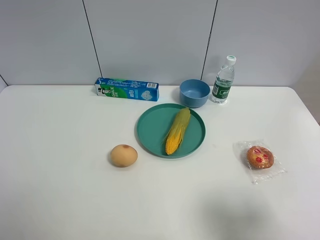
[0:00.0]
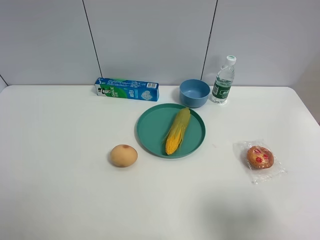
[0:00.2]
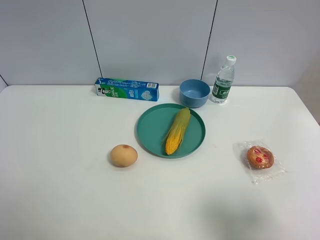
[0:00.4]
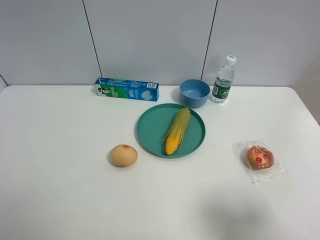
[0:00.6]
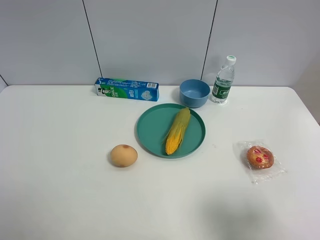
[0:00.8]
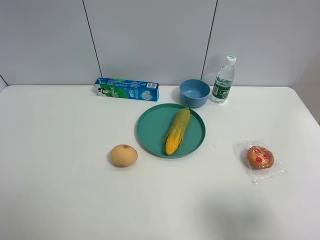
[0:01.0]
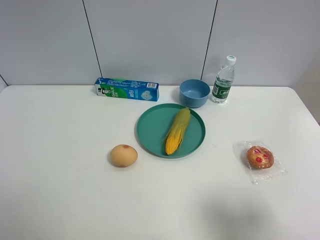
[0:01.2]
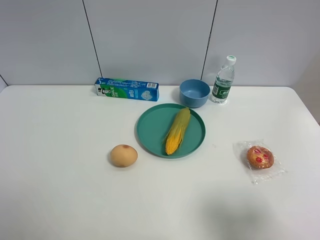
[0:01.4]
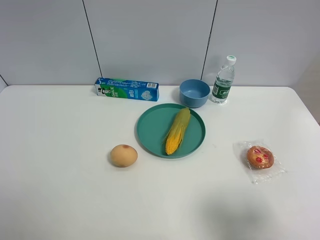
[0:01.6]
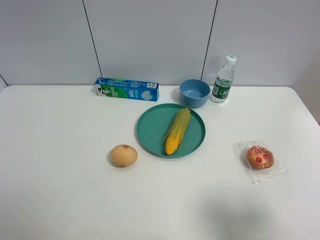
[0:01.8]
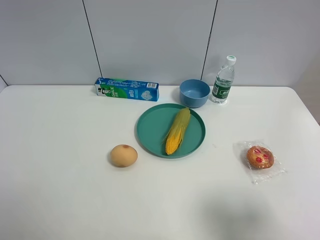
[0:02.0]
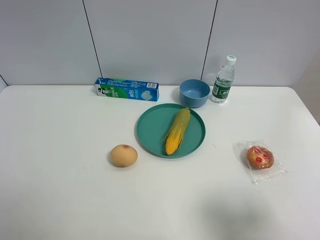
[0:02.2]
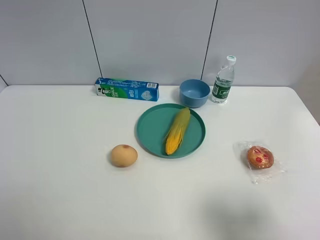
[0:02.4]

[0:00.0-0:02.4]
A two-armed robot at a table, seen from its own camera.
Task of the whole recording: the gripper move the object.
1.2 to 2.4 s: The two grippers keep their place.

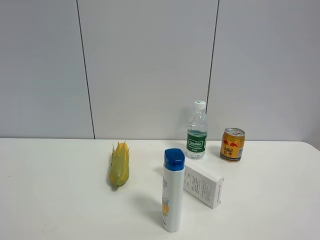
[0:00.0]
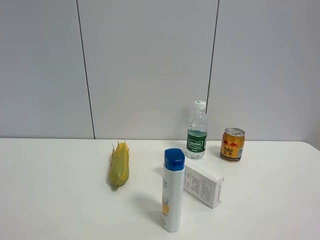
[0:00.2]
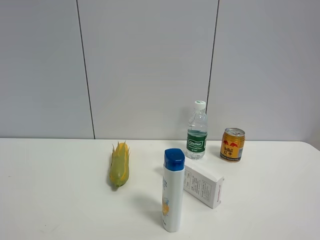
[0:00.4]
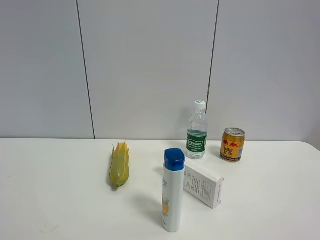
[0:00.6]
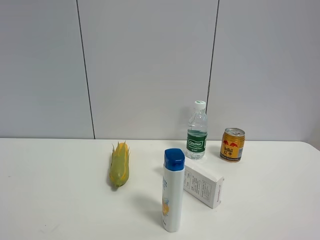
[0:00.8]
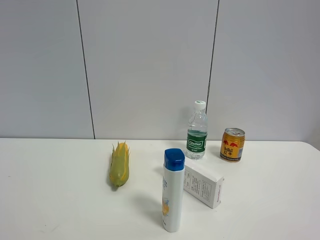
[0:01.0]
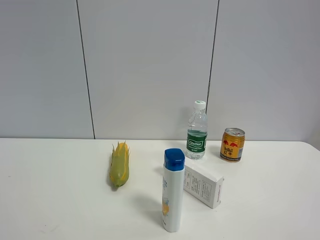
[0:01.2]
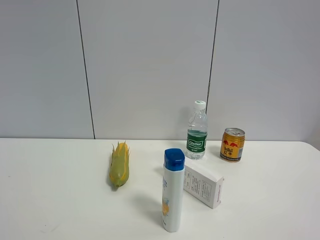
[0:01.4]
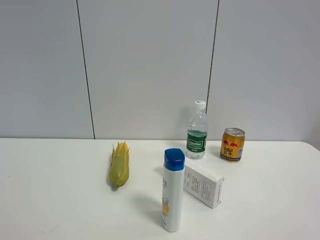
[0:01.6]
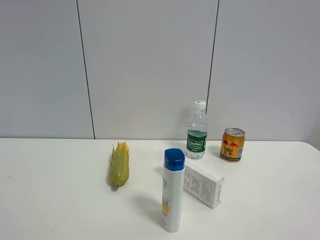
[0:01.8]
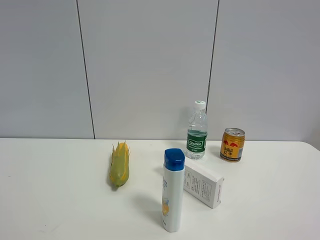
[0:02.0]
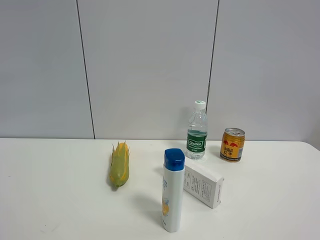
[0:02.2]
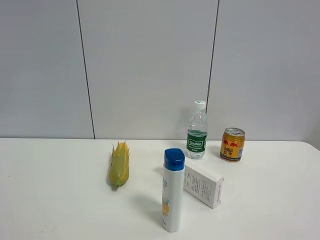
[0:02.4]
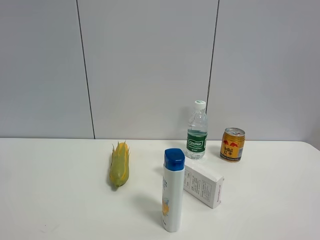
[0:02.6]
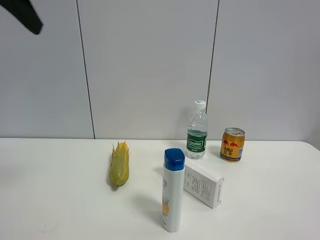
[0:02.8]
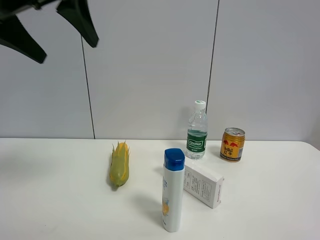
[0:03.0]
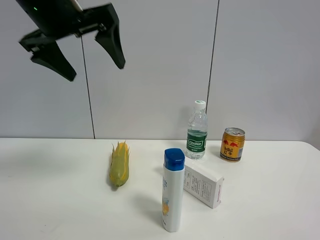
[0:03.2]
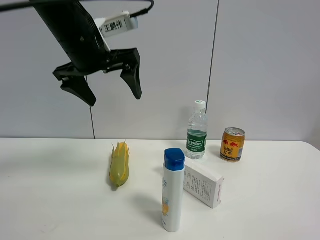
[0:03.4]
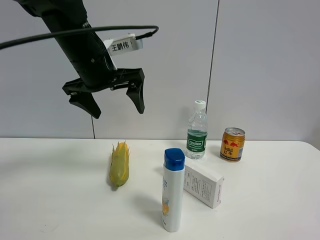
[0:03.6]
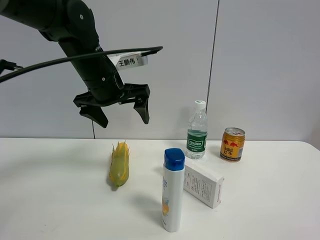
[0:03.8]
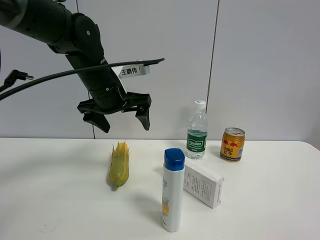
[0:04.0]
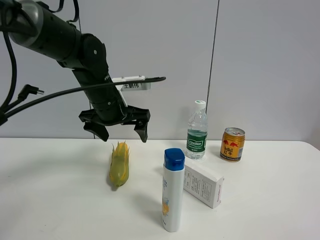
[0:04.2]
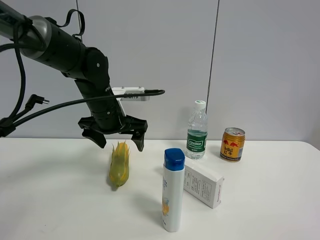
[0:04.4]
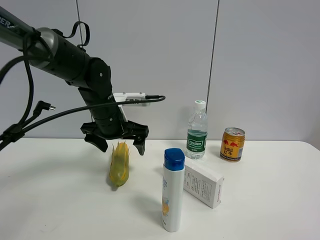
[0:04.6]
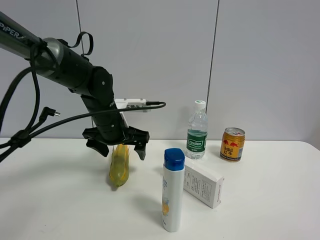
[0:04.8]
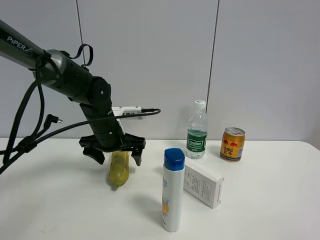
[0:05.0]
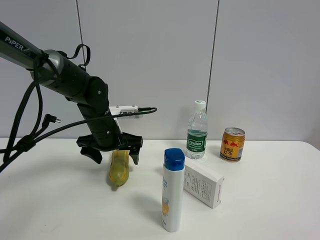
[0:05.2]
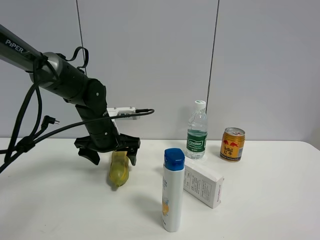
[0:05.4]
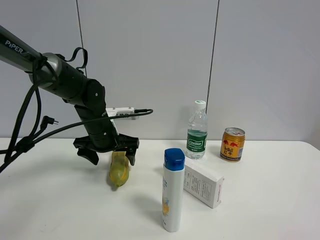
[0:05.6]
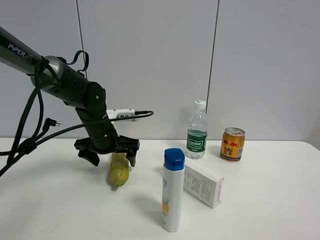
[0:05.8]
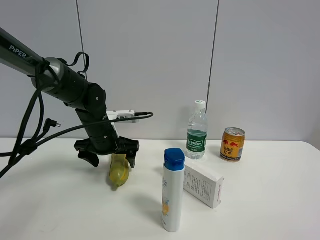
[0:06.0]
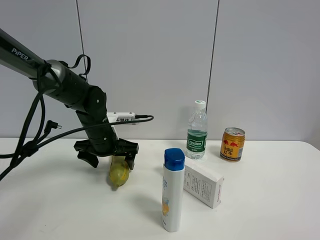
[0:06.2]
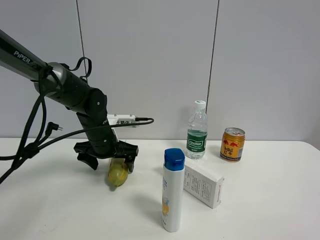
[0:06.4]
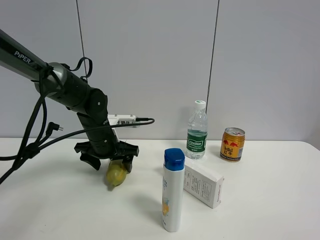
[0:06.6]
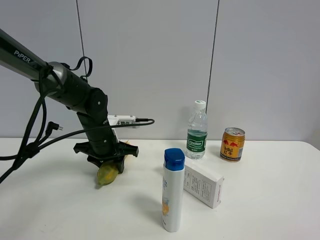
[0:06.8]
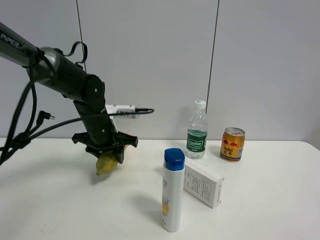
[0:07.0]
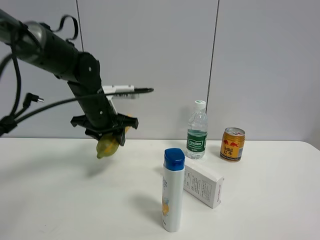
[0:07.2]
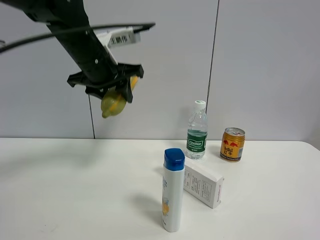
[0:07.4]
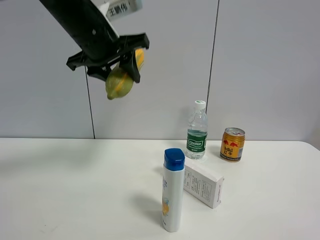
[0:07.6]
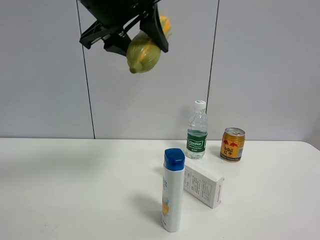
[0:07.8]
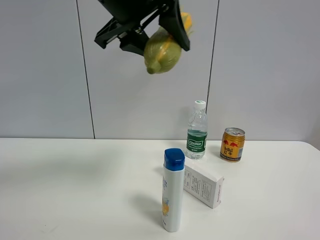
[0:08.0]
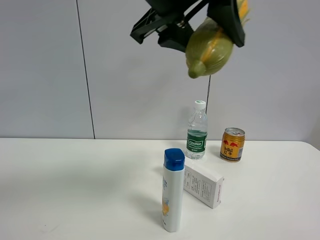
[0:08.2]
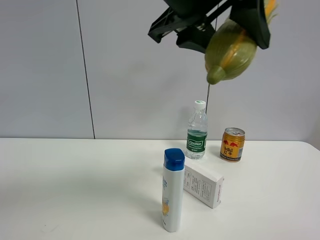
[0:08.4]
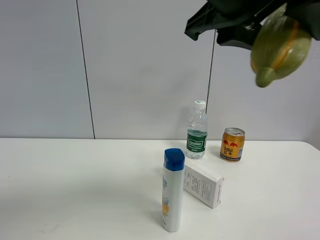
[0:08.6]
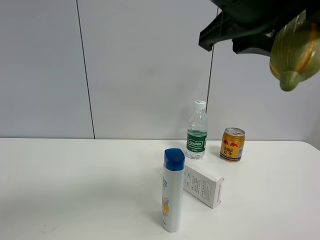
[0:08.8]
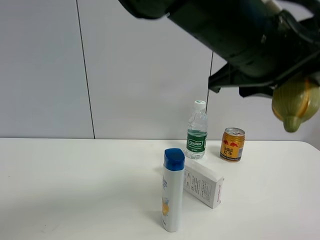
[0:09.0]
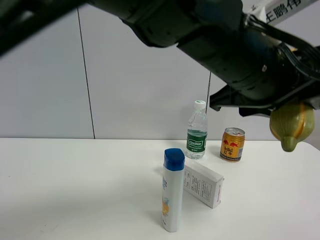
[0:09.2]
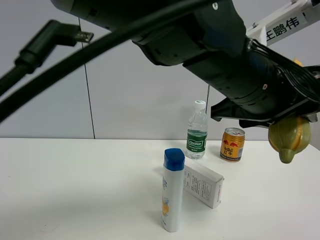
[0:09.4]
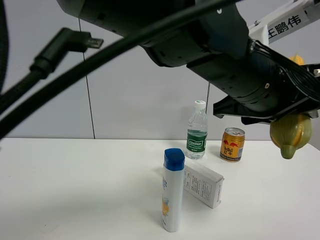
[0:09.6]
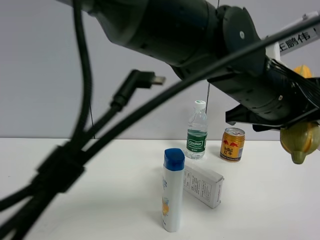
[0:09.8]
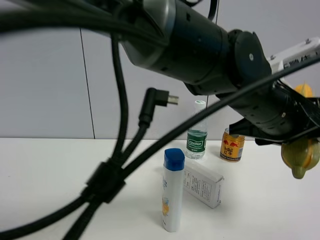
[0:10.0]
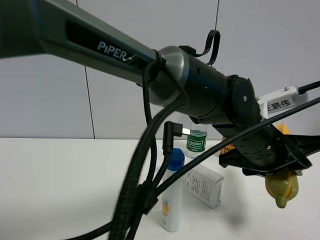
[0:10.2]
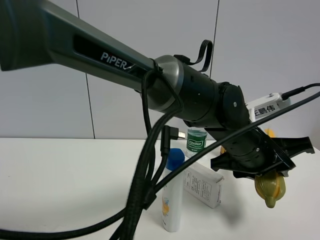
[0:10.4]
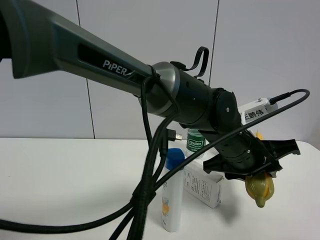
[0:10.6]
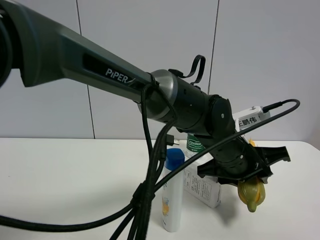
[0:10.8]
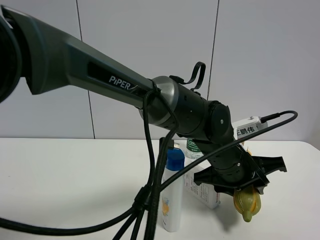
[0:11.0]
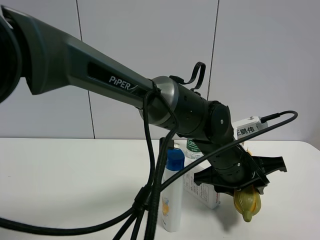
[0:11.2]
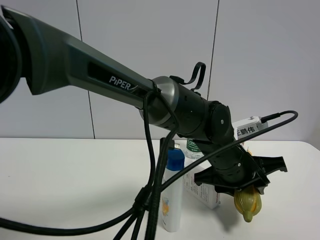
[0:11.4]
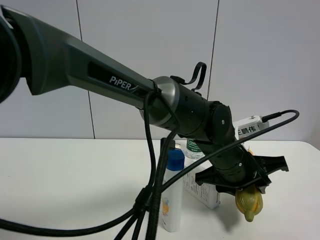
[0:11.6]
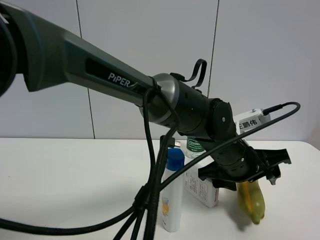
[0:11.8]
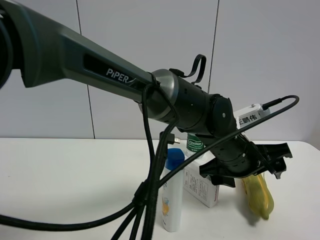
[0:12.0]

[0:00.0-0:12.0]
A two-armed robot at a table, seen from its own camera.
Task of the whole recording: the gripper move the object.
Step, 0.0 to 6.8 s: Grasp the corn with the left gripper.
Step, 7.0 to 11.8 s: Place the corn on the table with the left gripper.
0.0 to 1.6 s: The two grippers keep their place.
1.6 to 3.0 s: The left gripper travels forward and to the right by some 30 cm.
3.0 to 4.4 s: The left gripper goes some 25 cm downward and forward.
4.4 to 6.0 s: The left gripper goes roughly 5 cm downward.
6.0 to 7.6 s: The left gripper travels upward by approximately 25 cm, and closes up.
7.6 to 9.0 s: The left gripper heads to the right and backward, covering roughly 25 cm.
9.0 to 10.4 s: The left gripper heads downward and forward, covering roughly 15 cm.
10.4 to 12.0 s: The left gripper opens.

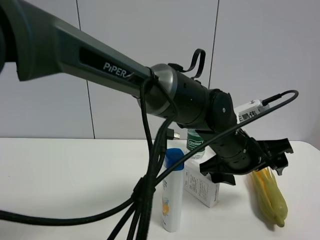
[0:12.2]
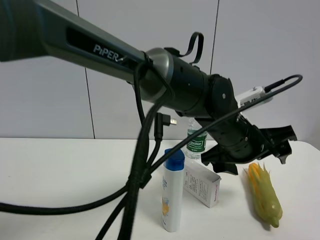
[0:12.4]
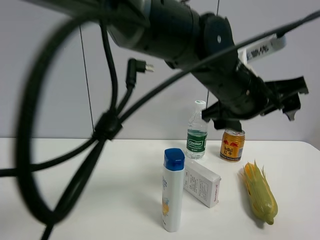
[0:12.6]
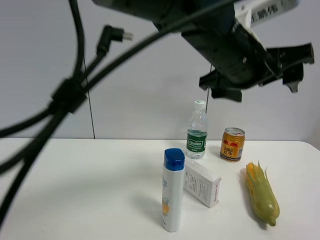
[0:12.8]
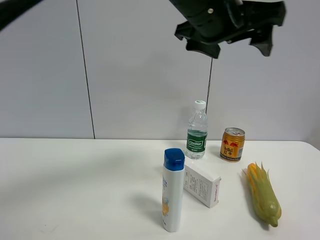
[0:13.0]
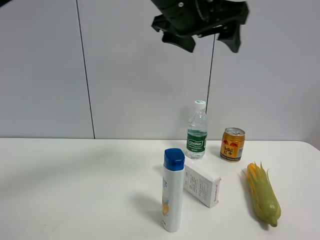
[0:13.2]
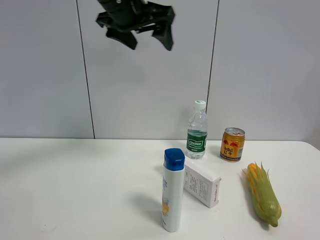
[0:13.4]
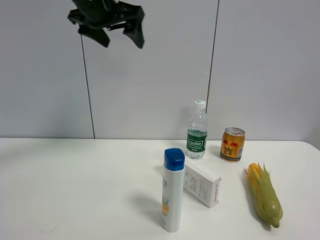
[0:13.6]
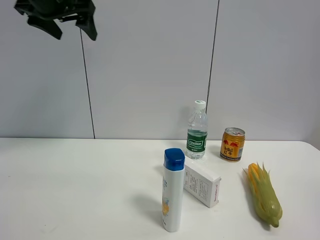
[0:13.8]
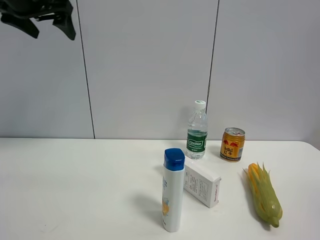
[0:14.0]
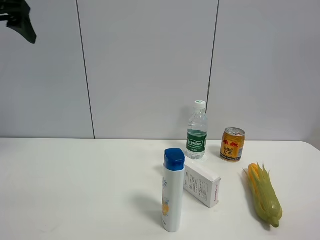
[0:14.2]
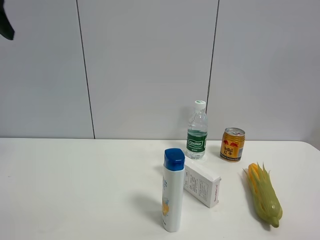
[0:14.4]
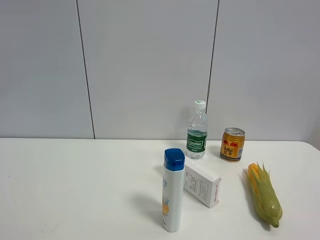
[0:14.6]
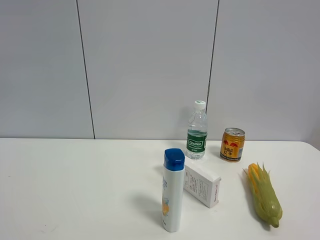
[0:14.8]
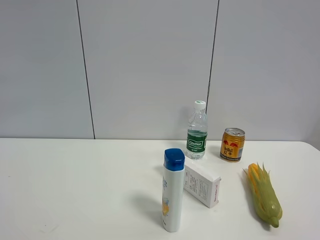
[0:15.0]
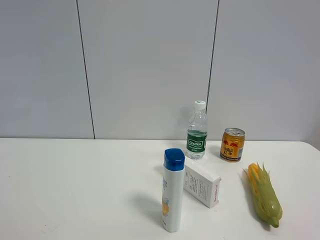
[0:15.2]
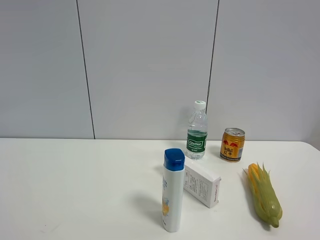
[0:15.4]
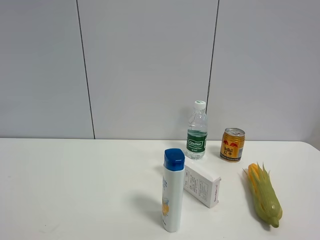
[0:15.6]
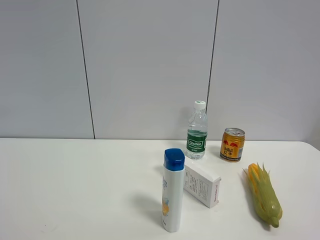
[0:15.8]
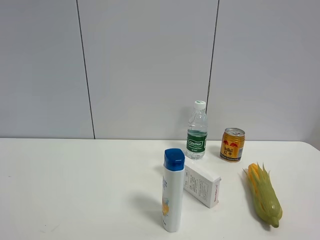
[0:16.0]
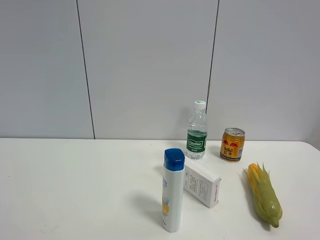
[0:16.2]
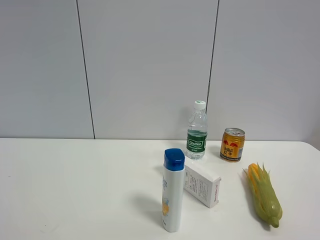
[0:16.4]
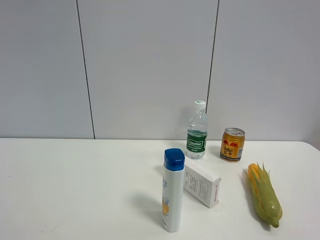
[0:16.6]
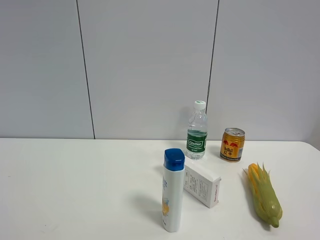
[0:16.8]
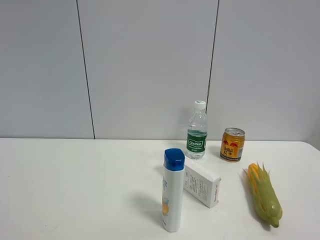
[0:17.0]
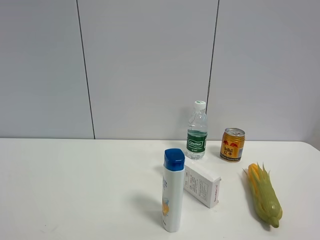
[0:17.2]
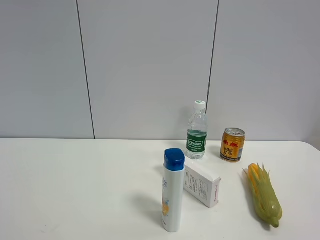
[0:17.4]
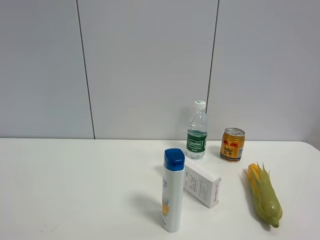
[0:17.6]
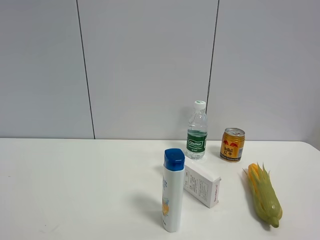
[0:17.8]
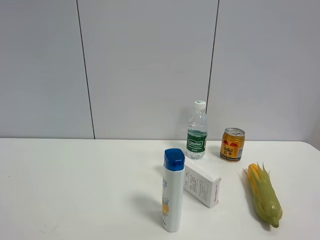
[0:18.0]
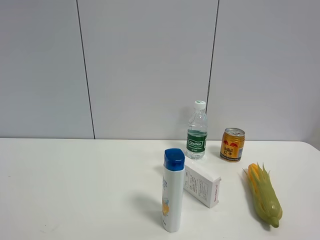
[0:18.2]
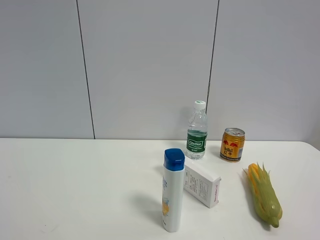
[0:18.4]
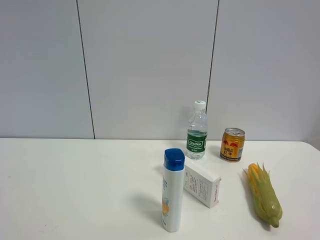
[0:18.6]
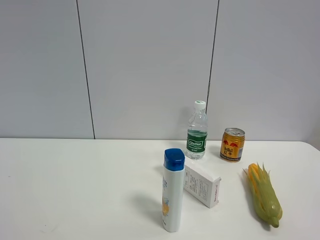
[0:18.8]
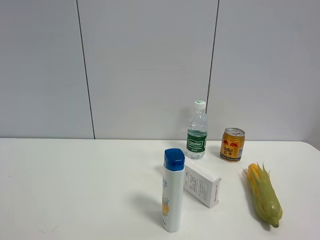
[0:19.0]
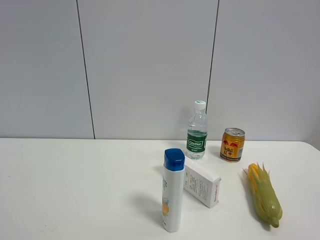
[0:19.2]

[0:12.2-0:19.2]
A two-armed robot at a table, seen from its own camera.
Task of the whole recording: the gripper move the object.
12.2 to 13.6 s: The left gripper heads to the left and upward, covering some 35 cm.
13.6 to 15.0 s: The left gripper travels backward and to the left by approximately 35 cm.
17.8 to 19.2 s: Both grippers stay put.

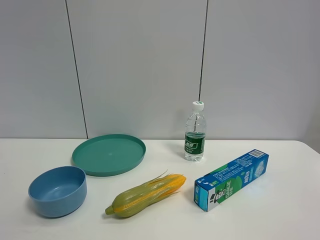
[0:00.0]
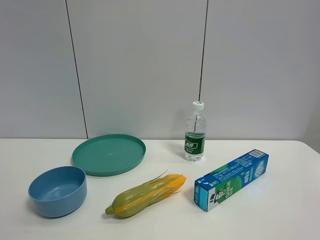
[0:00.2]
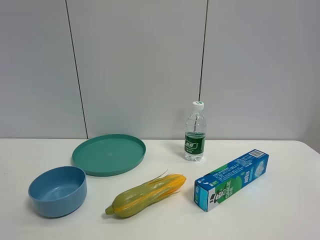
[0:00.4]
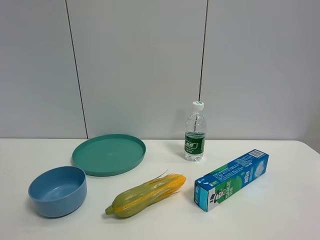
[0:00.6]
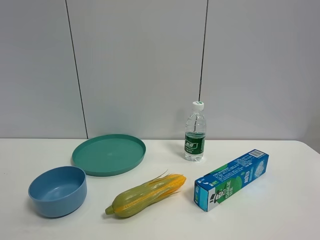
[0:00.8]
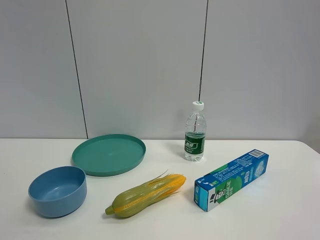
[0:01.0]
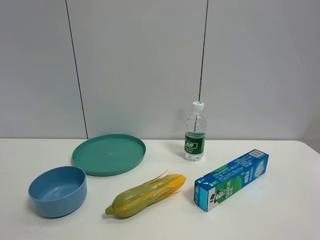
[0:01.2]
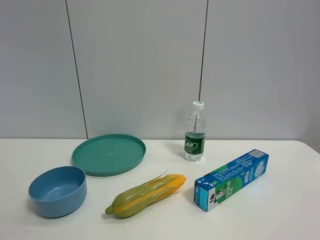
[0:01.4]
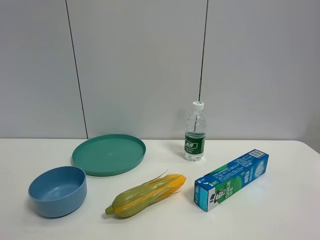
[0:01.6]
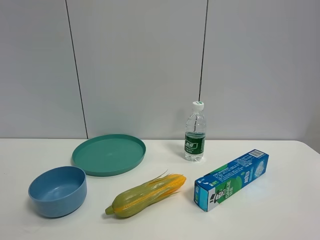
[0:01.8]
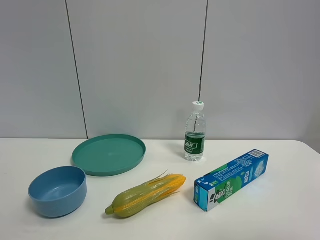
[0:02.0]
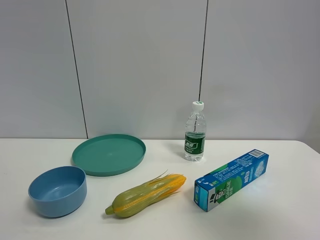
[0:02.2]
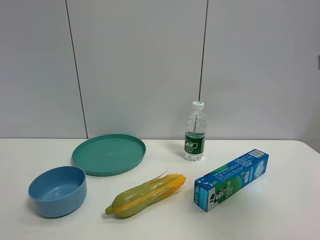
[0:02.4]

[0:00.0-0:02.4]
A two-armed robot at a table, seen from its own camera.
Task of the whole recording: the gripper move the object.
0.0 to 1.2 s: The two grippers keep their place.
1.2 to 2.4 s: The right gripper shifts roughly 20 cm forward.
